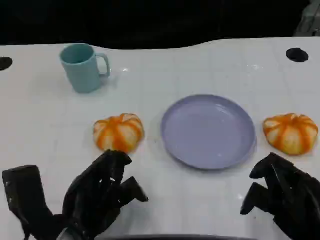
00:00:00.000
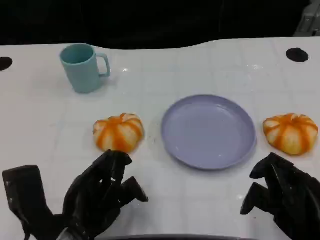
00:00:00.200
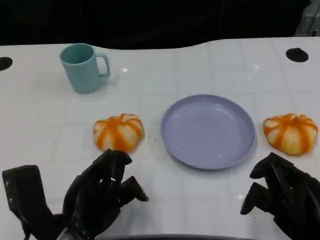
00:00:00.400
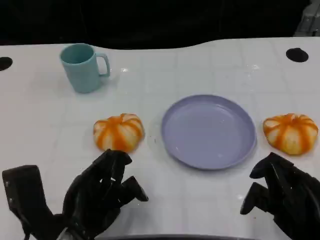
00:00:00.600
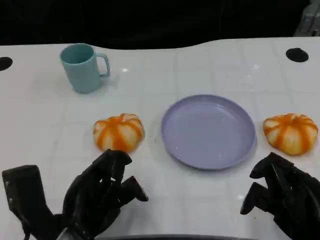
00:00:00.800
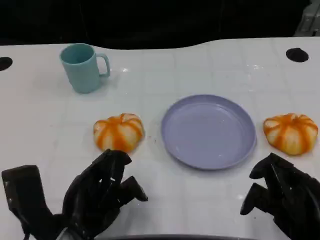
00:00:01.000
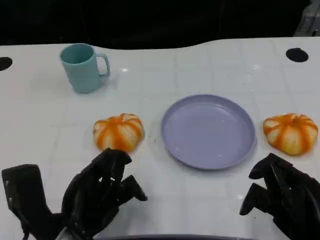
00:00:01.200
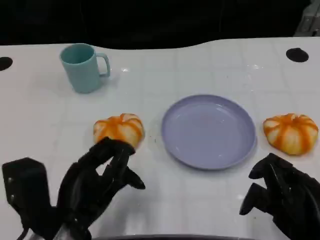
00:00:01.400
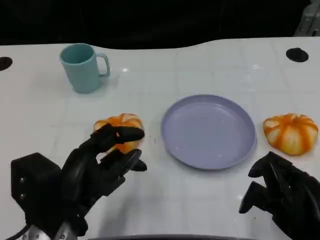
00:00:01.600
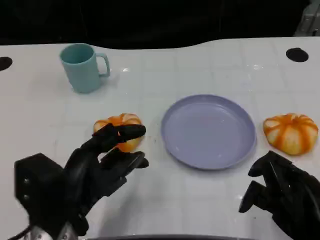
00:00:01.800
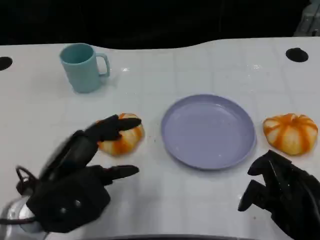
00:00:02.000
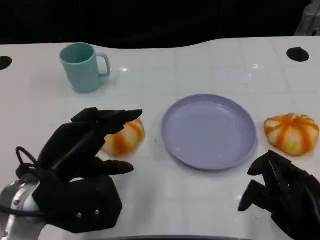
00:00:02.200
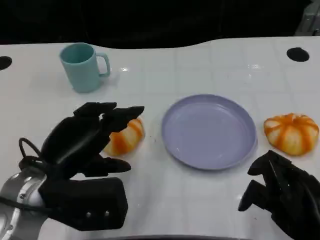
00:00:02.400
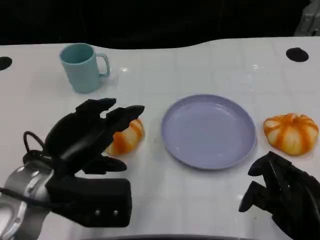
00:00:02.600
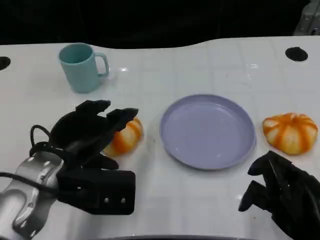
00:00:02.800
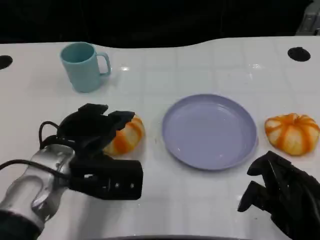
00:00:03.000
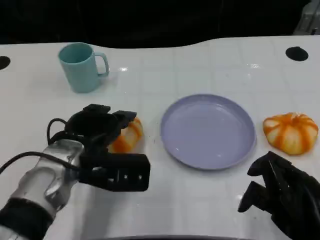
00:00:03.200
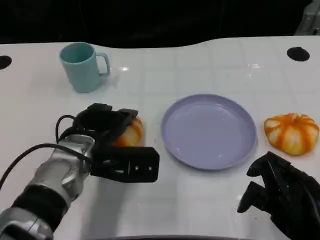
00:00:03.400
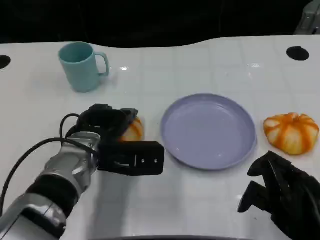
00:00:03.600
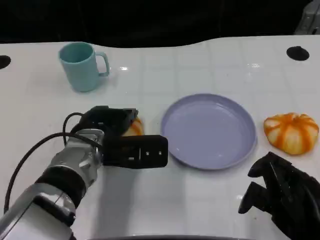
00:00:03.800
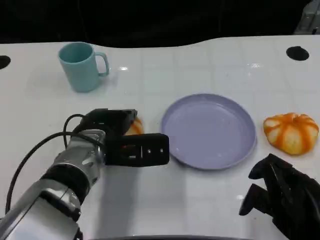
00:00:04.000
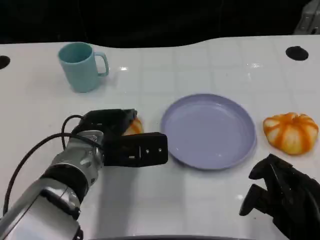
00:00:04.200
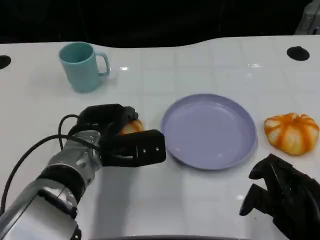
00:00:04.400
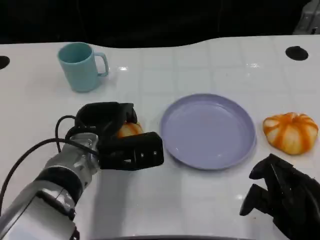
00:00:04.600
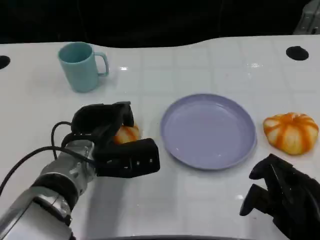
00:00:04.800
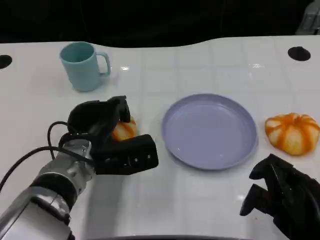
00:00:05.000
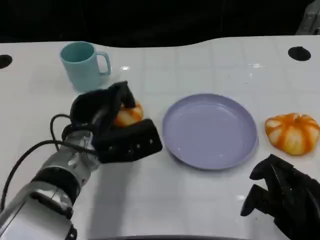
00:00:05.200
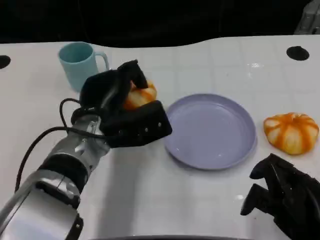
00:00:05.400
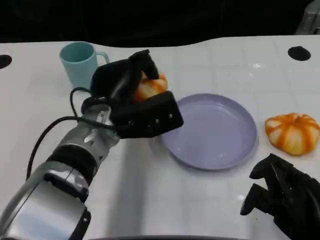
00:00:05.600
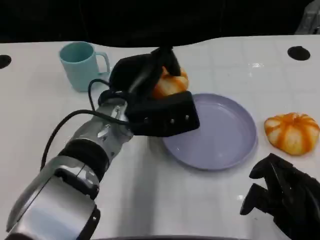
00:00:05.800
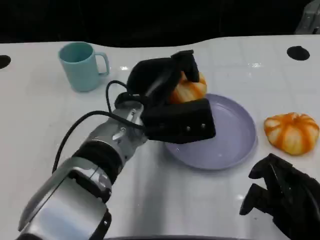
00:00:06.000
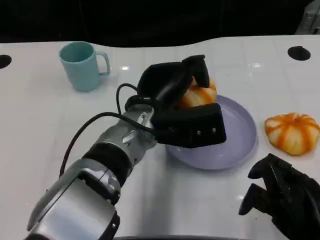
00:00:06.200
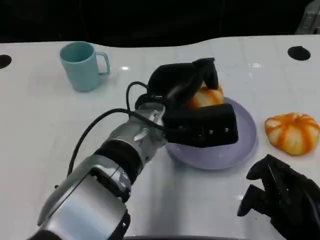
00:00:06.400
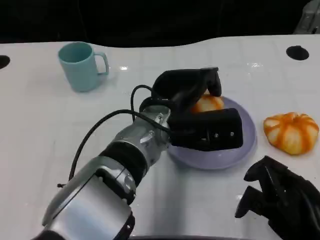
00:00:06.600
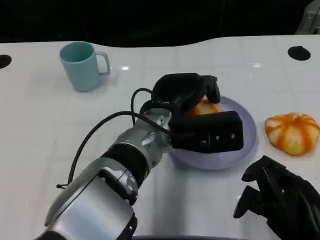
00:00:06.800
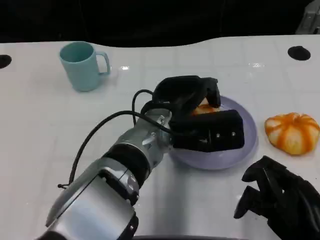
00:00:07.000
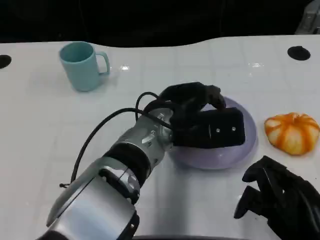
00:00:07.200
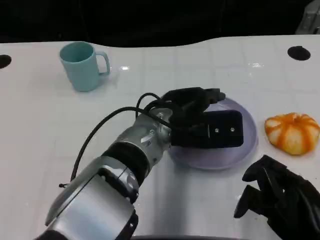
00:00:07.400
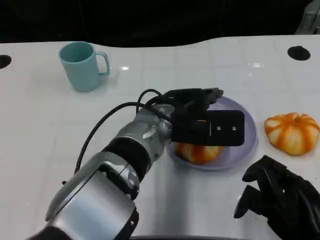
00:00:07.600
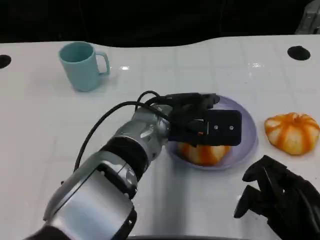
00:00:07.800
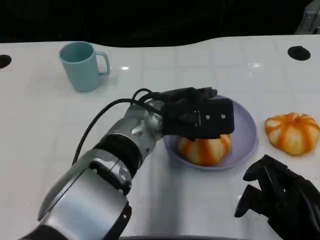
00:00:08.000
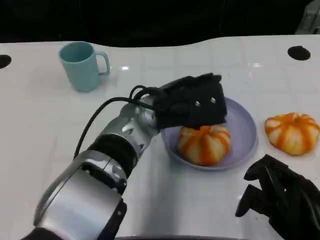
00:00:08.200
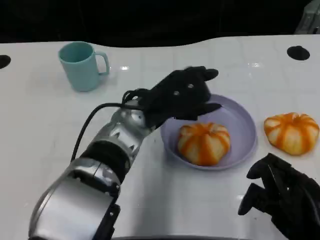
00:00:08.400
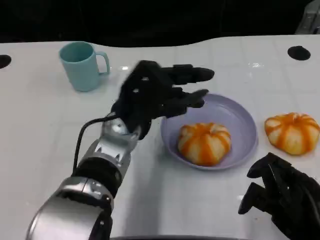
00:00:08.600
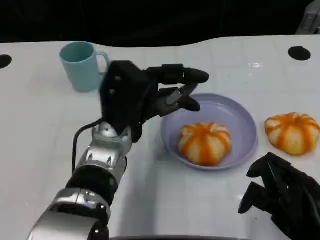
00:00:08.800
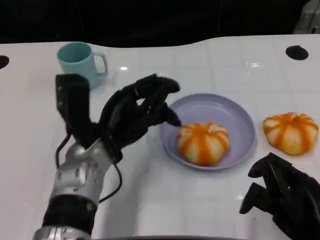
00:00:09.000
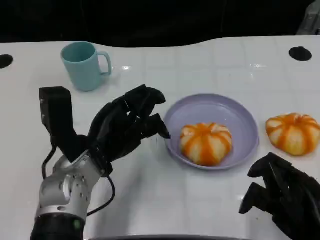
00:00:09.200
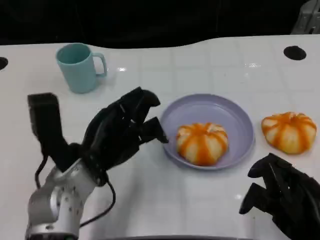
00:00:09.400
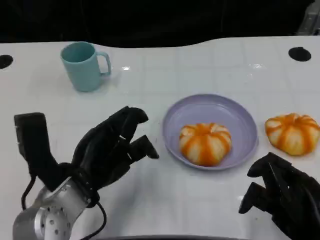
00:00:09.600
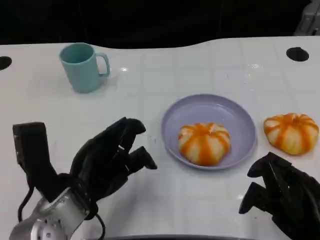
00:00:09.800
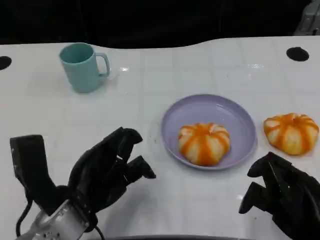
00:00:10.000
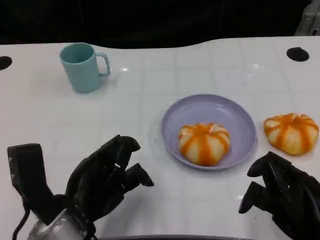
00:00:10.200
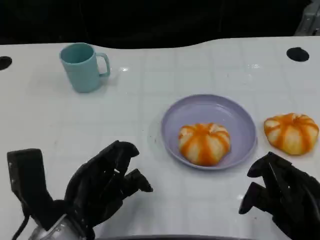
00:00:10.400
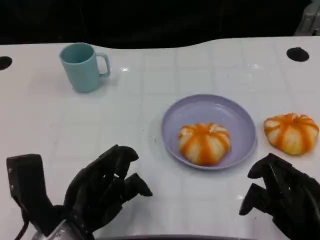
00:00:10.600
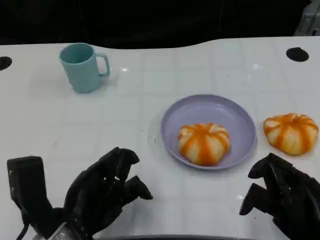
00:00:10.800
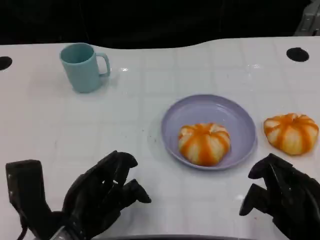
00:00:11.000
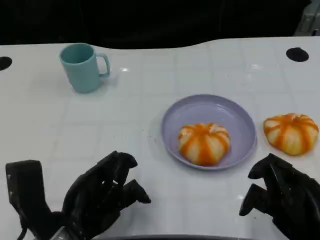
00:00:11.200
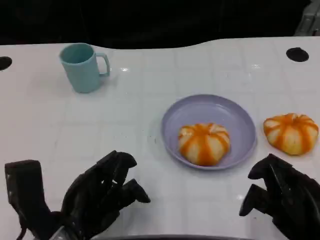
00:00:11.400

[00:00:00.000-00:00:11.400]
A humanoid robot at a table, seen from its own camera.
Task of the whole recording: Grasp the bread from the table and place it into the plate.
00:00:01.400 to 00:00:02.800: The left hand is displaced forward by about 5 cm.
00:00:02.800 to 00:00:04.200: The left hand moves forward and to the right, approximately 10 cm.
00:00:04.200 to 00:00:05.600: The left hand changes place by approximately 5 cm.
00:00:05.600 to 00:00:07.200: The left hand goes about 5 cm to the right.
00:00:07.200 to 00:00:08.600: The left hand travels to the left by some 5 cm.
00:00:08.600 to 00:00:10.000: The left hand goes roughly 15 cm backward and to the left.
00:00:10.000 to 00:00:11.400: The hands move only a little.

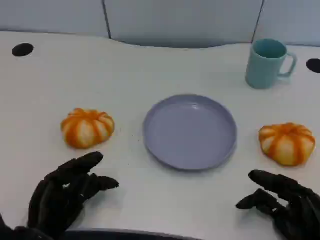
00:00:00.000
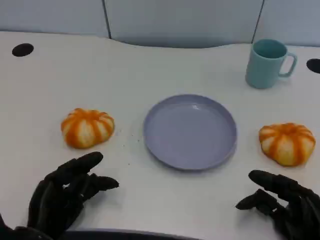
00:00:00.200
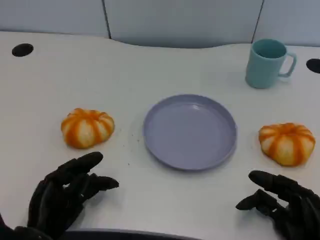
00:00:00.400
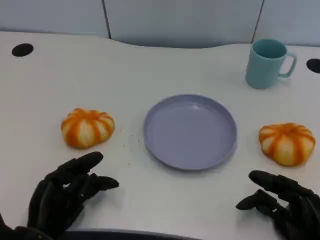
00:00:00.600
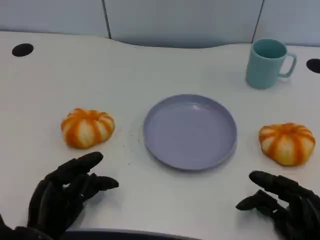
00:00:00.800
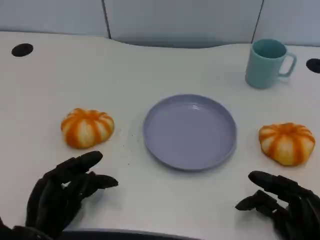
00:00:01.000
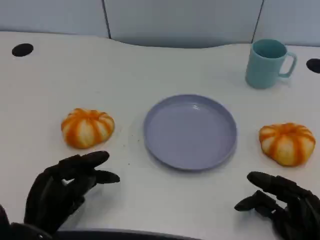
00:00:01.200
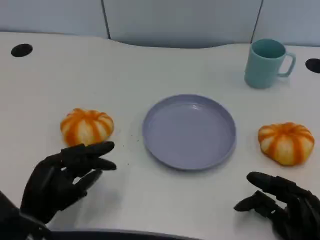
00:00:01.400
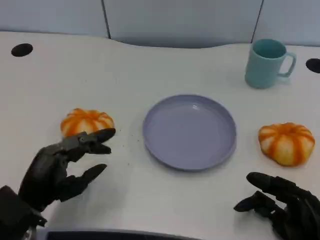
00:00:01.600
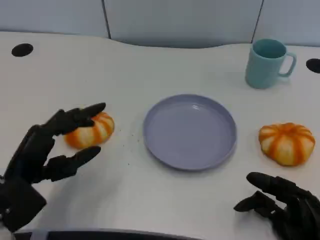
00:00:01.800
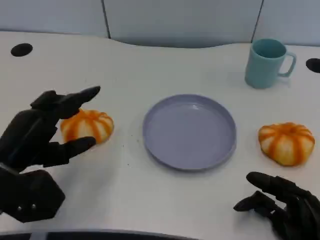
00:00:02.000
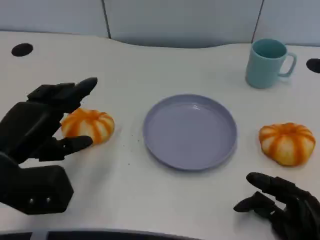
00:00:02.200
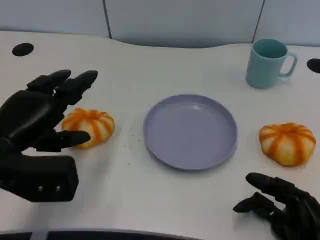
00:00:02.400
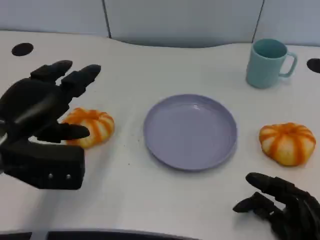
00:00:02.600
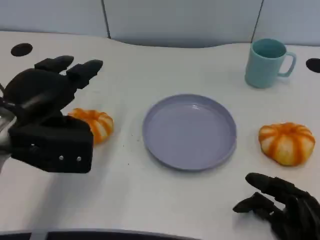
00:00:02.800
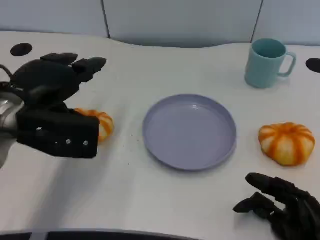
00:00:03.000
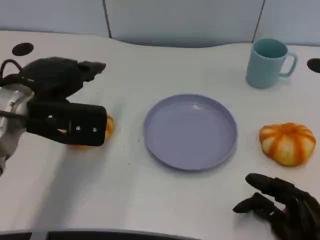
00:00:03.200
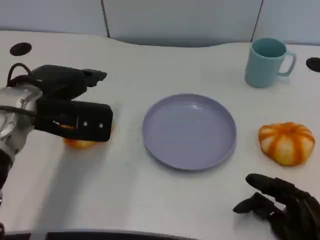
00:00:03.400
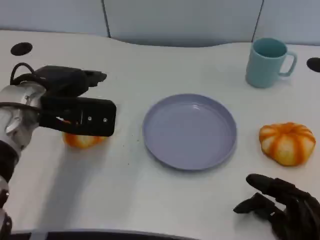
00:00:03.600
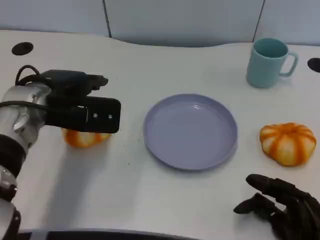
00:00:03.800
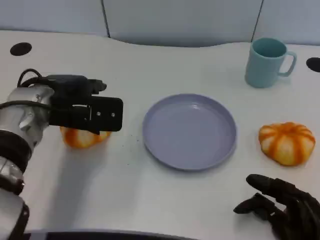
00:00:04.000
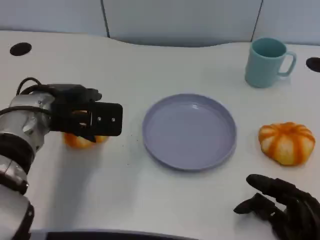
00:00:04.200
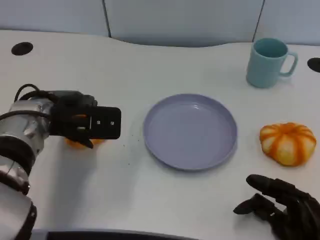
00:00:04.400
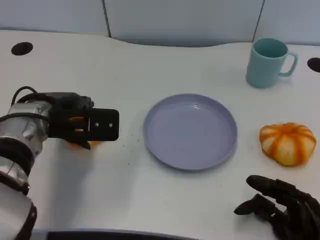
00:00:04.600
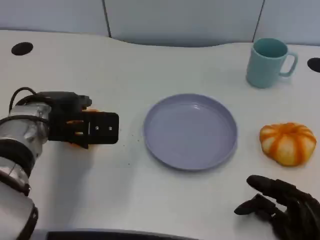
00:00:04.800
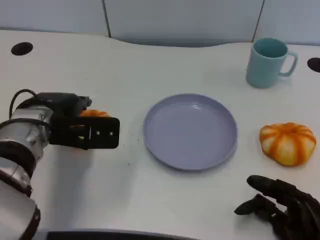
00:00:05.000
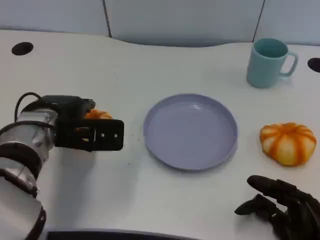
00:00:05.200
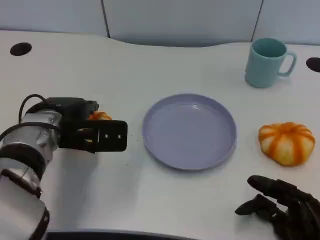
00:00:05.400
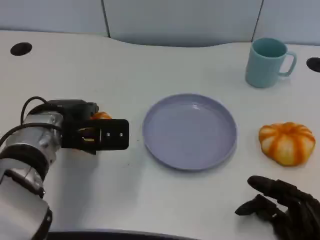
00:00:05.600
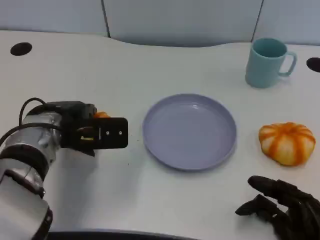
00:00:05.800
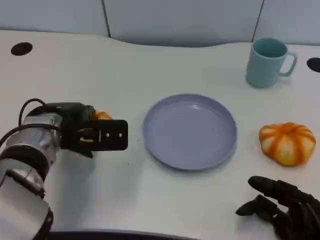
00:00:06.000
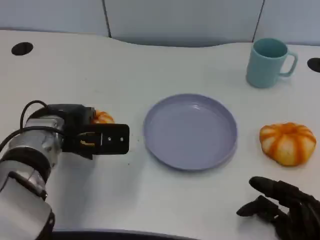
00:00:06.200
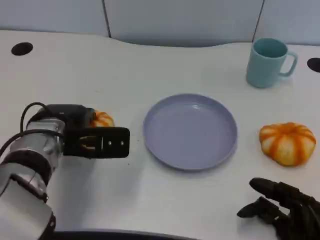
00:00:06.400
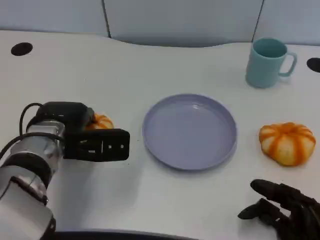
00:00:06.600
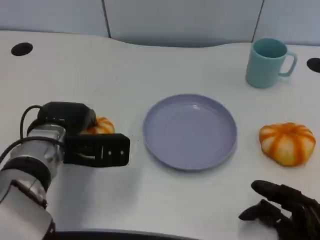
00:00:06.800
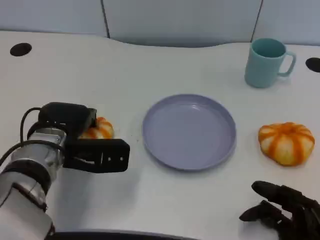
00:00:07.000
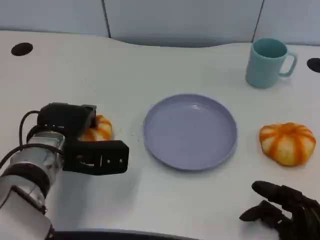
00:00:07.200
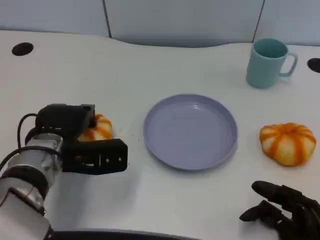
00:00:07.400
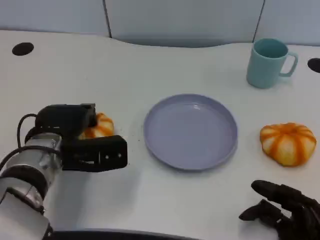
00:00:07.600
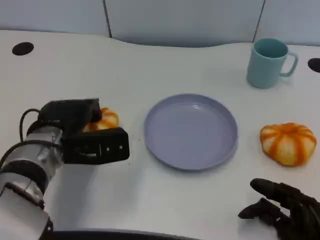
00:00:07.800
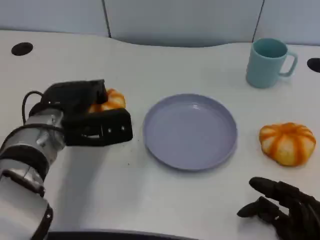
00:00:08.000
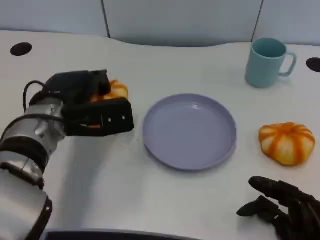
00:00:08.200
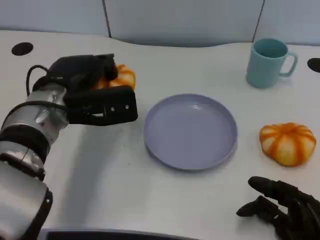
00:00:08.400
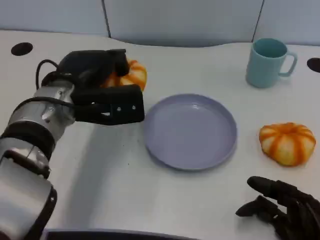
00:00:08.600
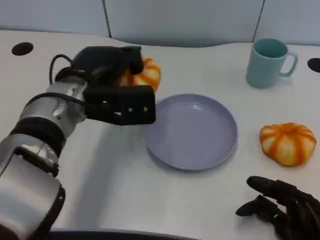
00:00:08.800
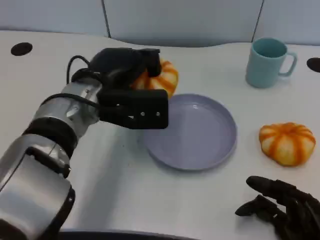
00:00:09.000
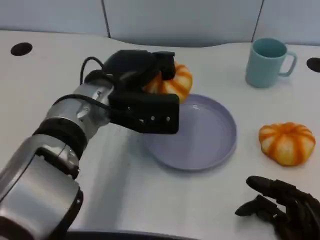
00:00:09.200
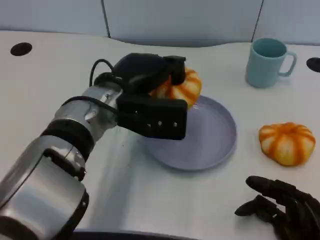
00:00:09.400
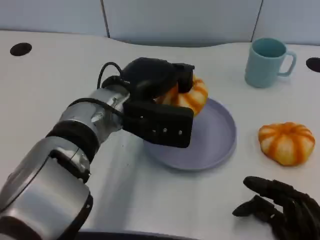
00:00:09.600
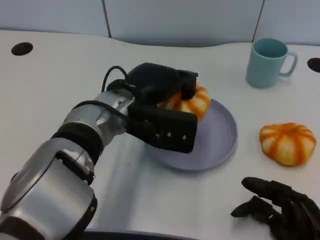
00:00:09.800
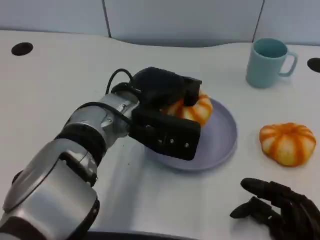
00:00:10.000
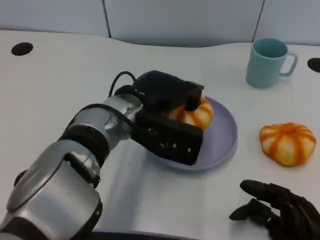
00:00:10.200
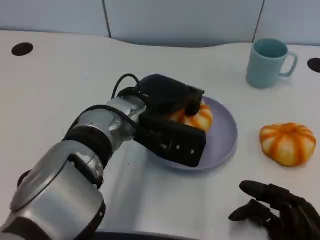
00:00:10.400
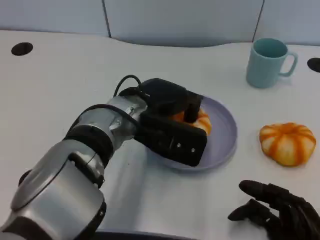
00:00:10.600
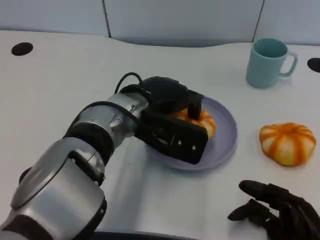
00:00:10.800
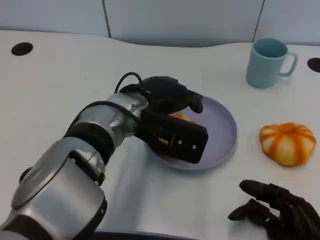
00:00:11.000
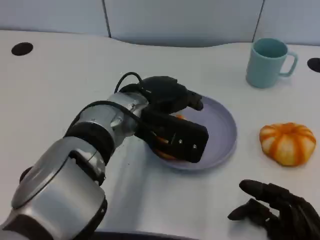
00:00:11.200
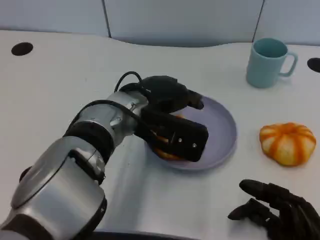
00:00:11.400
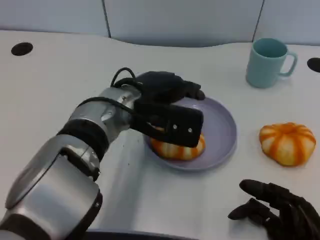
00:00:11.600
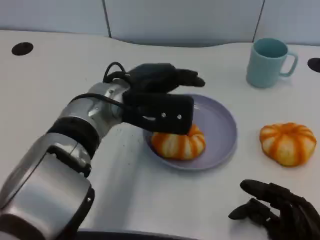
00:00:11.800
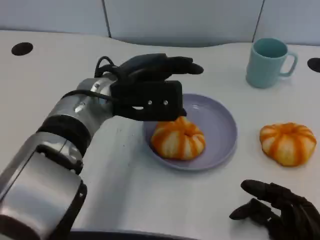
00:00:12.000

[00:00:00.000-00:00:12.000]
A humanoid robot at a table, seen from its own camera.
Task of the whole recording: Grasp the bread from the table and place it into the plate.
00:00:00.000 to 00:00:01.600: The left hand travels upward by some 5 cm.
00:00:01.600 to 00:00:03.000: The left hand shifts approximately 15 cm upward and forward.
00:00:03.000 to 00:00:04.400: The left hand moves roughly 5 cm.
00:00:04.400 to 00:00:07.600: The hands stay close to where they were, moving slightly.
00:00:07.600 to 00:00:09.000: The left hand is displaced upward and to the right by some 10 cm.
00:00:09.000 to 00:00:10.400: The left hand shifts by about 5 cm.
00:00:10.400 to 00:00:12.000: The left hand moves approximately 5 cm.
